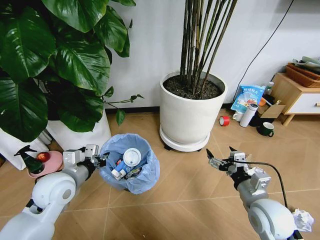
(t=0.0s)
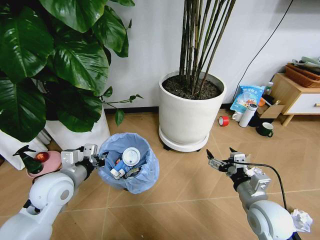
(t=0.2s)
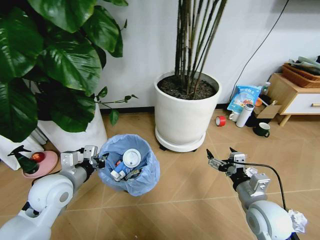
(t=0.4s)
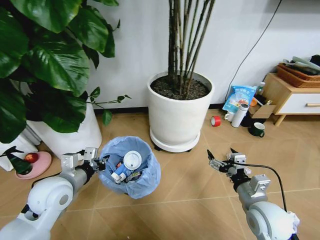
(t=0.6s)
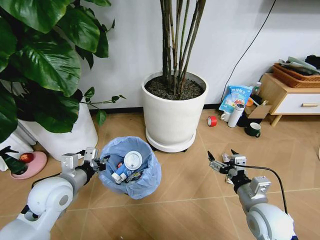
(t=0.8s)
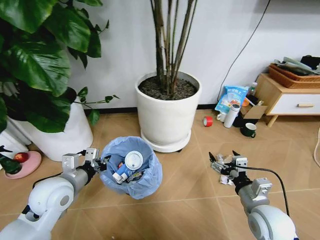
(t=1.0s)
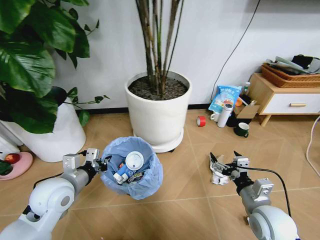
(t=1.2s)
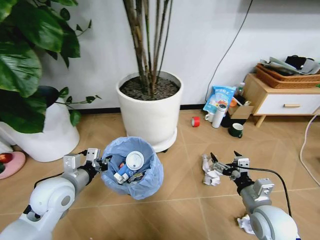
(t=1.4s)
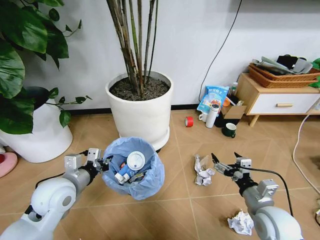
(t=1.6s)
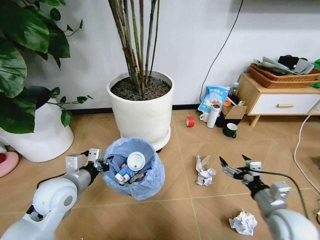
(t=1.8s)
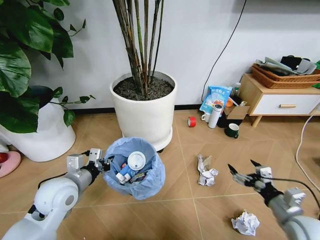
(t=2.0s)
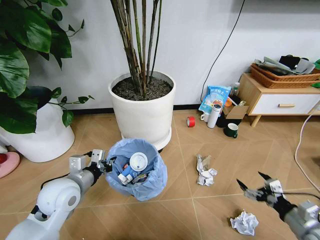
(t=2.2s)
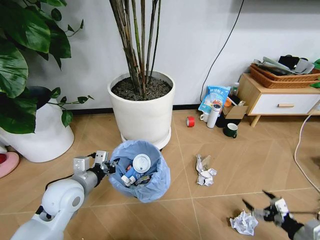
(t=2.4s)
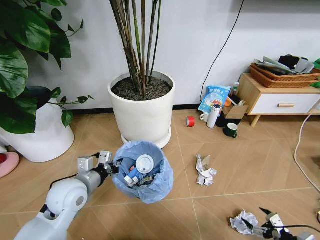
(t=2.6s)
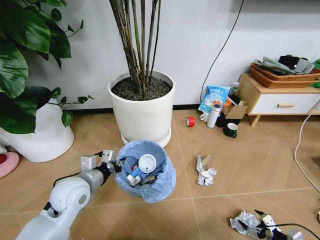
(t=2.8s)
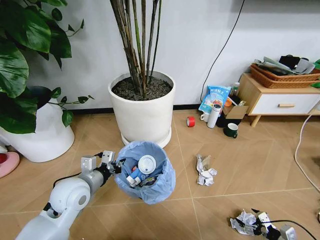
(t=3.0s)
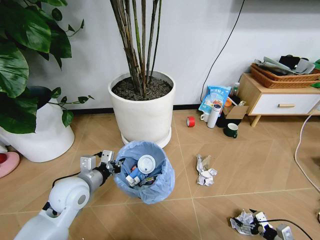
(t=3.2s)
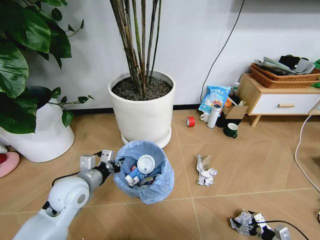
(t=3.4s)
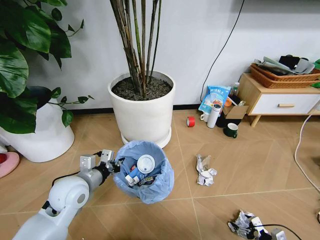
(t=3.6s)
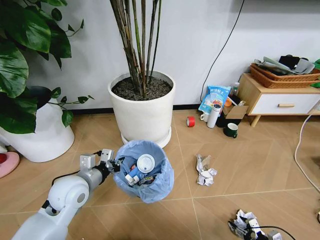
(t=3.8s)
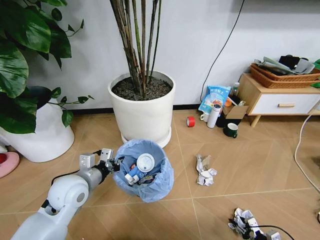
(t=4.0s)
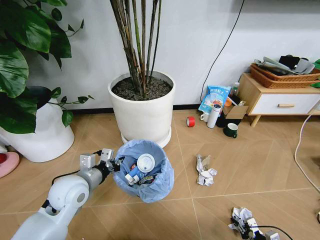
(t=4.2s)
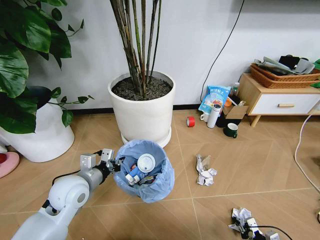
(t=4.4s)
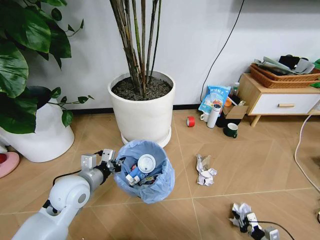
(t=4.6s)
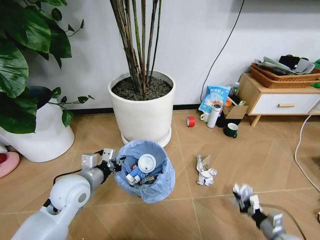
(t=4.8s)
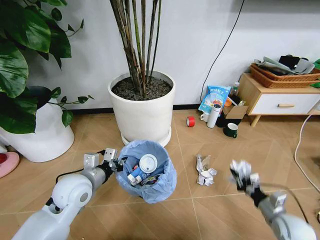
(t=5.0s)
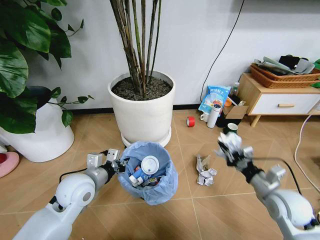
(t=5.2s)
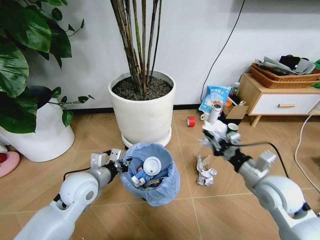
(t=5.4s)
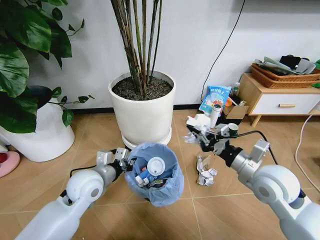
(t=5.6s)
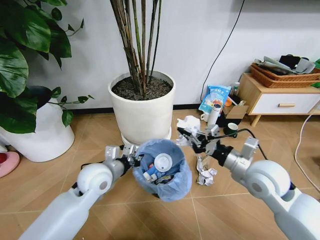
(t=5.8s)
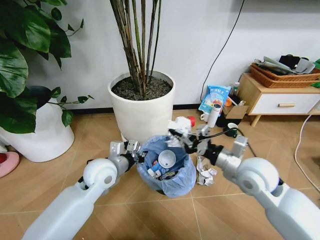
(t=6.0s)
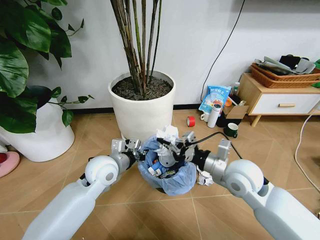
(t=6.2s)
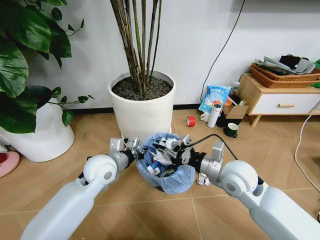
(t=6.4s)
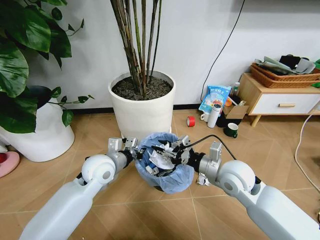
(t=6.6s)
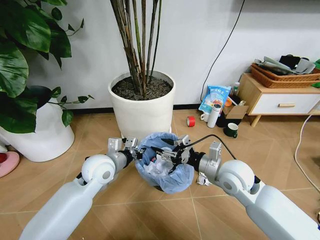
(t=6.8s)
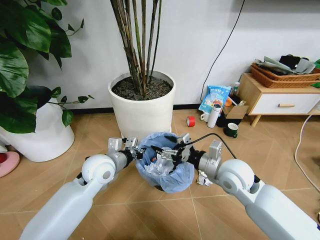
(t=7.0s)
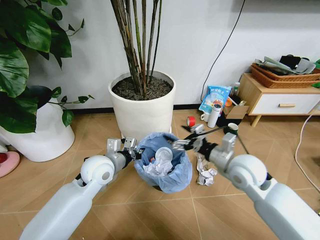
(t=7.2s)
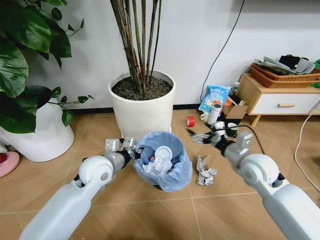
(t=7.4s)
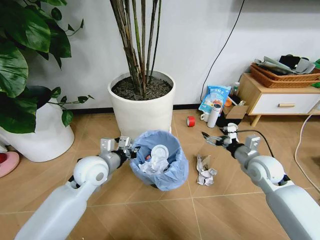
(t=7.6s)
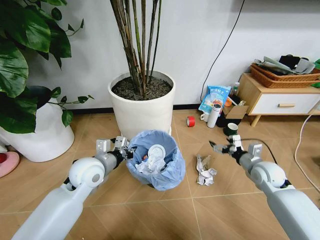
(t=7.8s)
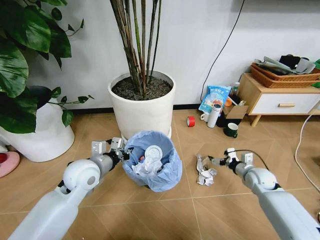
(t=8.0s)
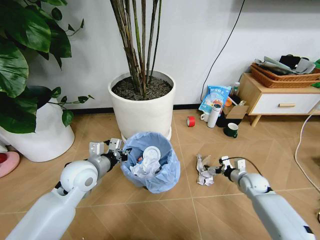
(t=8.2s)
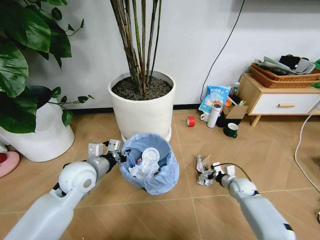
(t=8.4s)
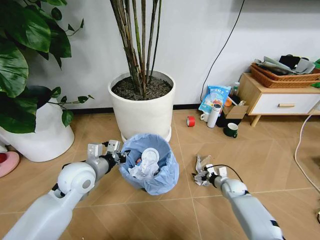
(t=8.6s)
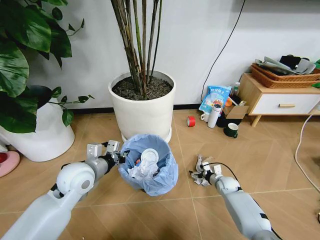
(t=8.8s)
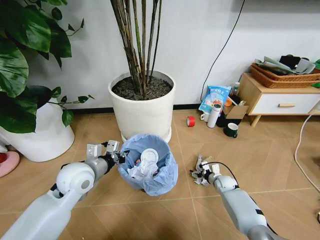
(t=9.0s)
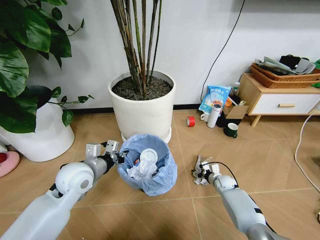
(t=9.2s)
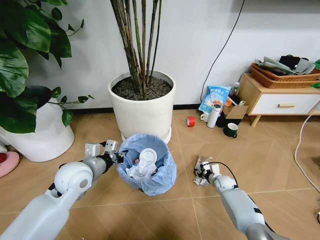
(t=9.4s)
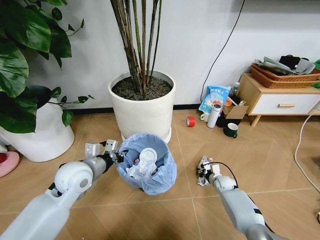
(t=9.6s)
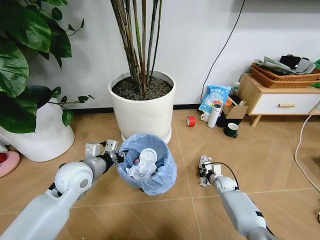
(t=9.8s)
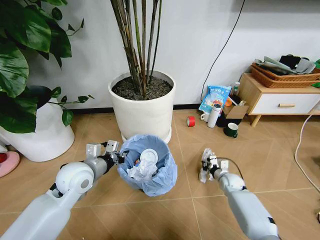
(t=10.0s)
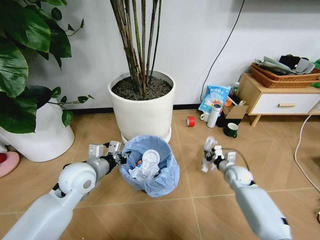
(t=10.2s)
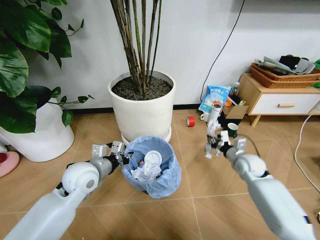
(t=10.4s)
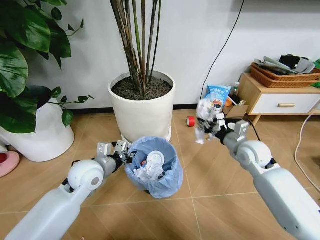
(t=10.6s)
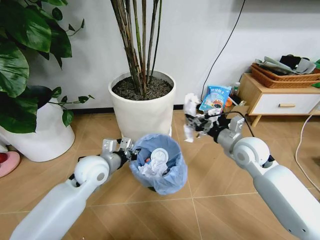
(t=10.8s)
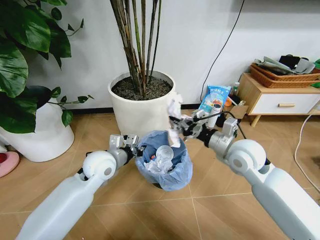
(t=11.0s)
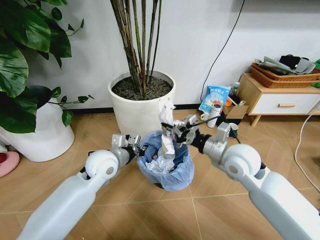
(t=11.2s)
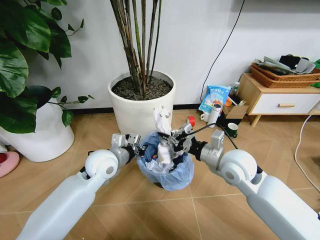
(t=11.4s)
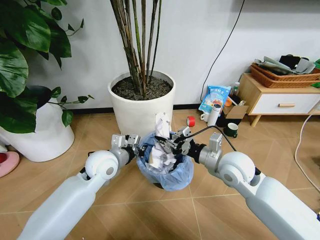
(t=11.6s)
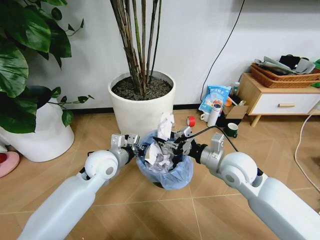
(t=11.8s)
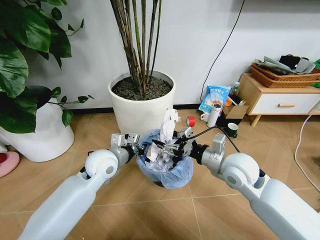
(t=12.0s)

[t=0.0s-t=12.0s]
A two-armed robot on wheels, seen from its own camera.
Task of the whole recording: Pick up the trash bin and place the garbage on the floor into it.
t=1.6s to t=3.0s: The right gripper moves to the right, downward and backward, some 30 cm.
t=3.0s to t=4.4s: The right gripper shifts roughly 5 cm downward, and closes.
t=4.4s to t=6.0s: The left gripper is displaced to the right and forward by about 10 cm. Meanwhile the right gripper travels upward, to the left and forward by some 40 cm.
t=6.0s to t=7.6s: The right gripper shifts some 15 cm to the right, downward and forward, and opens.
t=7.6s to t=9.0s: The right gripper heads downward, covering about 25 cm.
t=9.0s to t=10.4s: The right gripper shifts about 20 cm upward, and closes.
t=10.4s to t=12.0s: The right gripper goes some 20 cm to the left, upward and backward, and opens. The left gripper moves to the right, some 5 cm.

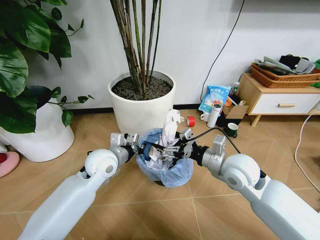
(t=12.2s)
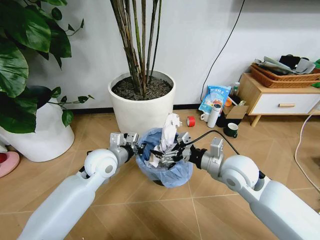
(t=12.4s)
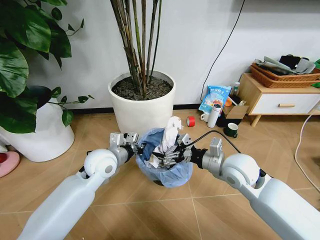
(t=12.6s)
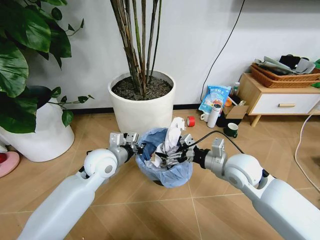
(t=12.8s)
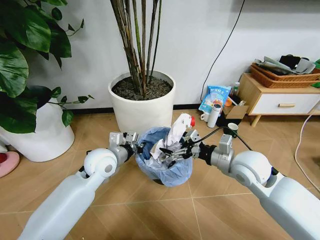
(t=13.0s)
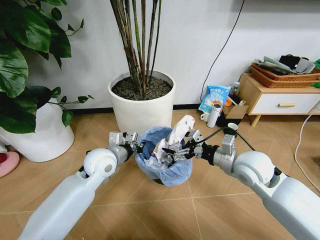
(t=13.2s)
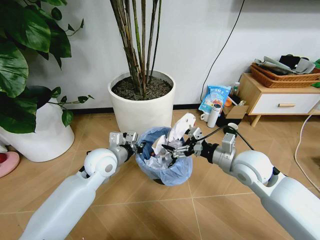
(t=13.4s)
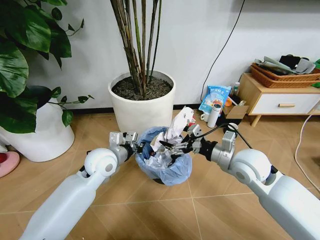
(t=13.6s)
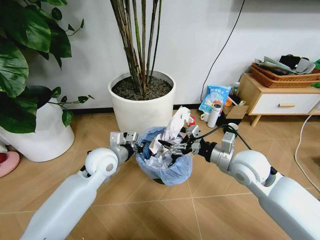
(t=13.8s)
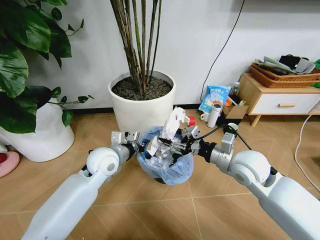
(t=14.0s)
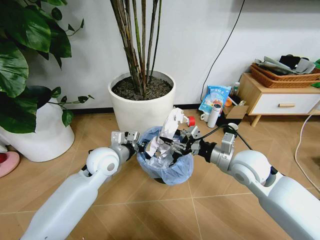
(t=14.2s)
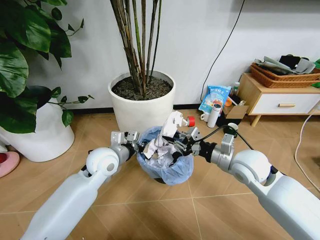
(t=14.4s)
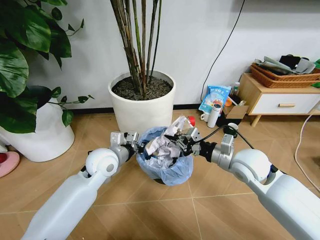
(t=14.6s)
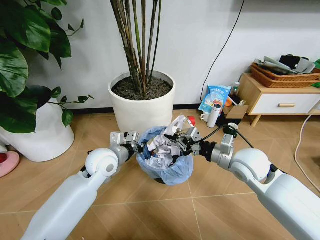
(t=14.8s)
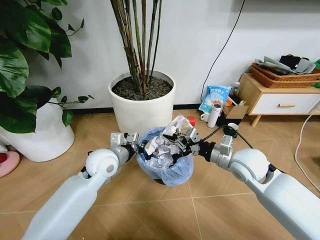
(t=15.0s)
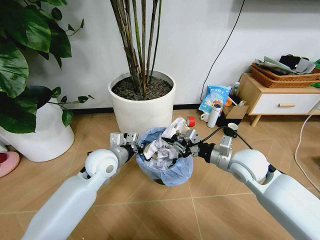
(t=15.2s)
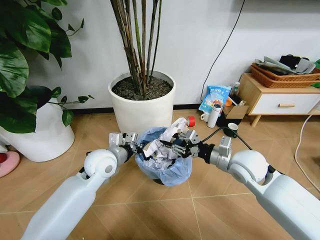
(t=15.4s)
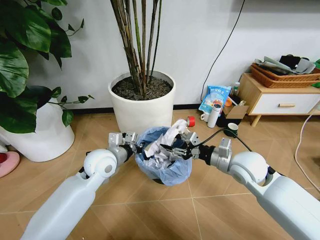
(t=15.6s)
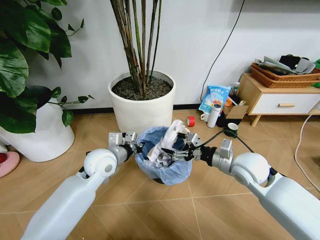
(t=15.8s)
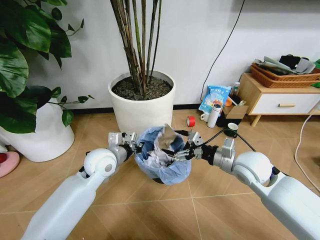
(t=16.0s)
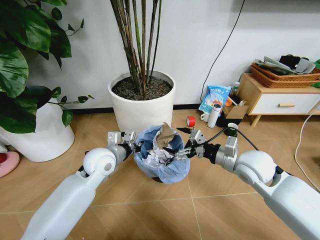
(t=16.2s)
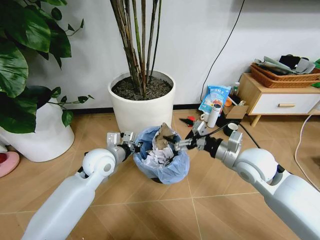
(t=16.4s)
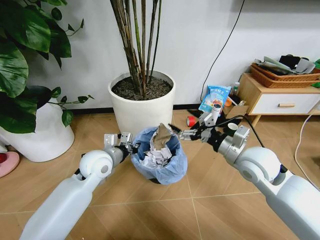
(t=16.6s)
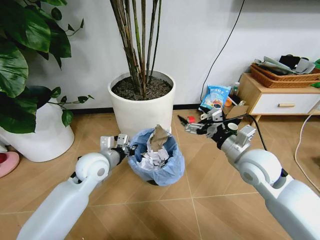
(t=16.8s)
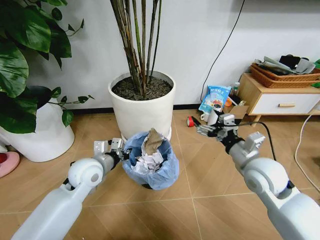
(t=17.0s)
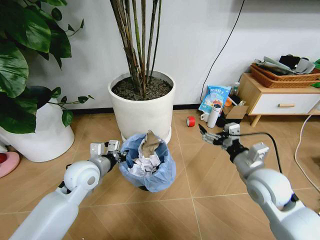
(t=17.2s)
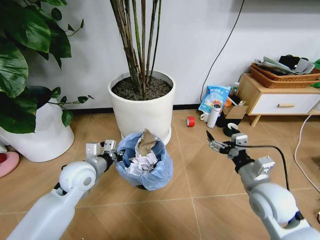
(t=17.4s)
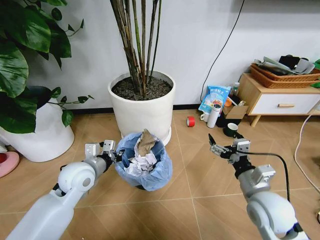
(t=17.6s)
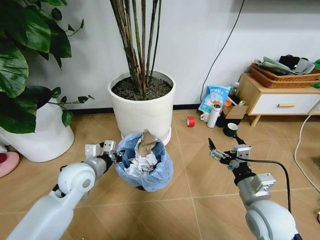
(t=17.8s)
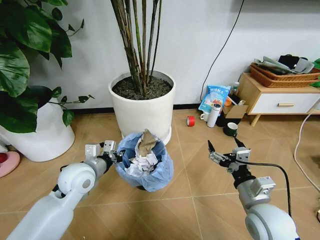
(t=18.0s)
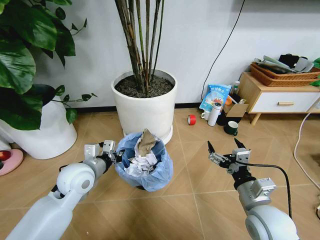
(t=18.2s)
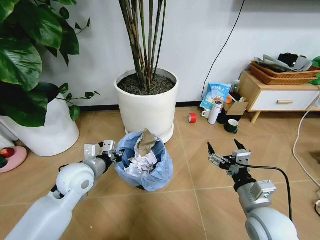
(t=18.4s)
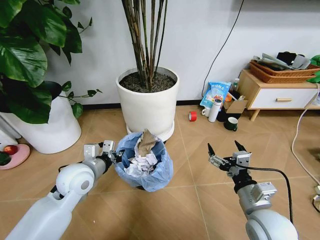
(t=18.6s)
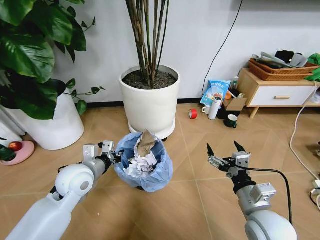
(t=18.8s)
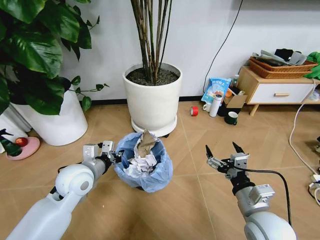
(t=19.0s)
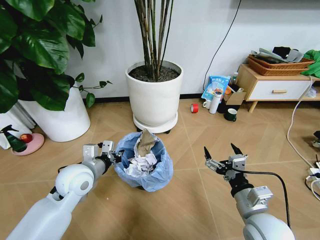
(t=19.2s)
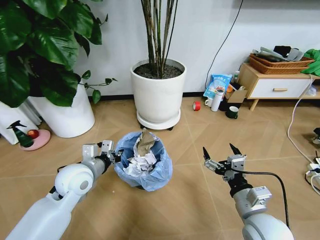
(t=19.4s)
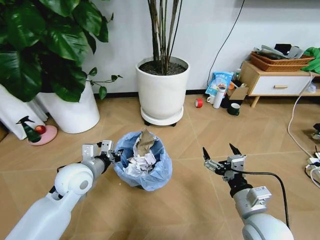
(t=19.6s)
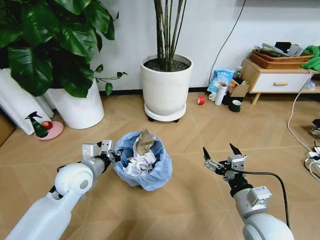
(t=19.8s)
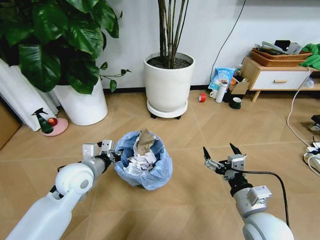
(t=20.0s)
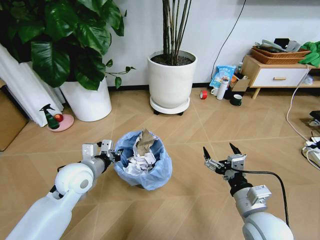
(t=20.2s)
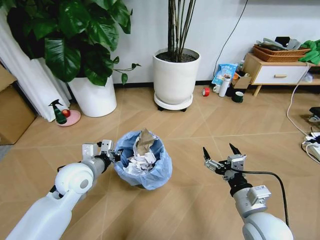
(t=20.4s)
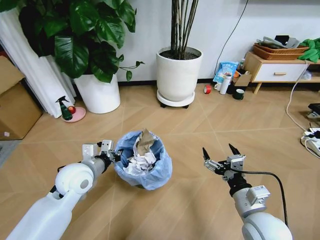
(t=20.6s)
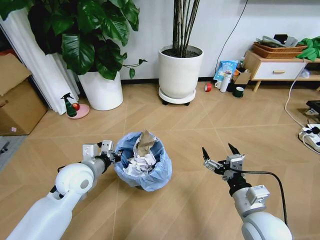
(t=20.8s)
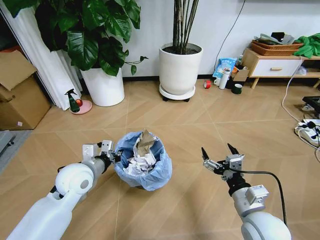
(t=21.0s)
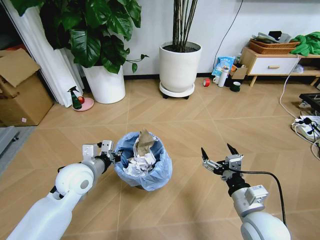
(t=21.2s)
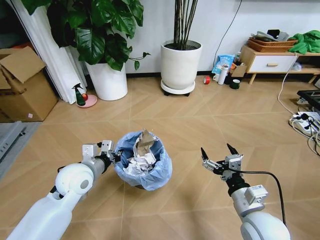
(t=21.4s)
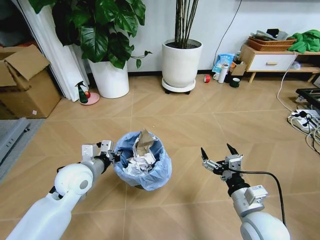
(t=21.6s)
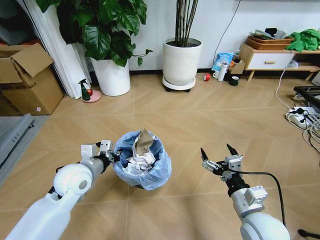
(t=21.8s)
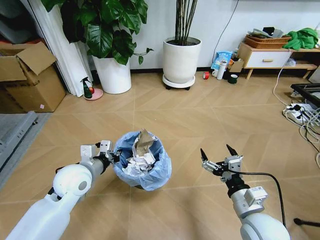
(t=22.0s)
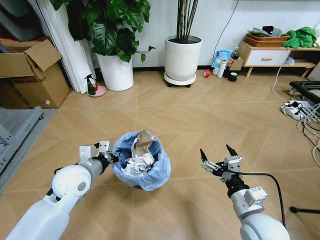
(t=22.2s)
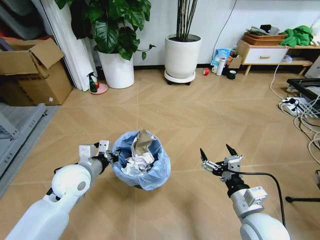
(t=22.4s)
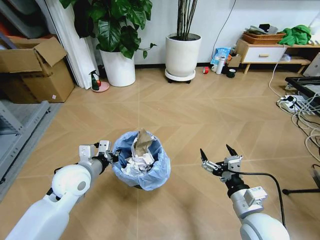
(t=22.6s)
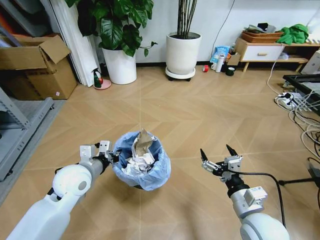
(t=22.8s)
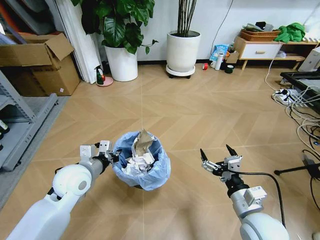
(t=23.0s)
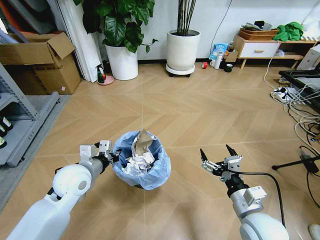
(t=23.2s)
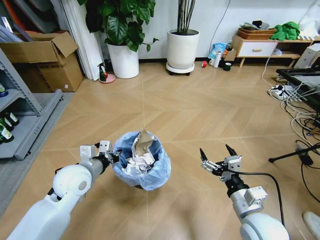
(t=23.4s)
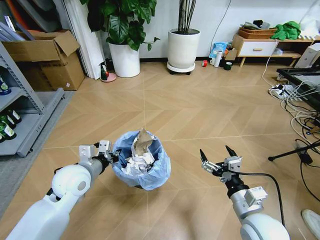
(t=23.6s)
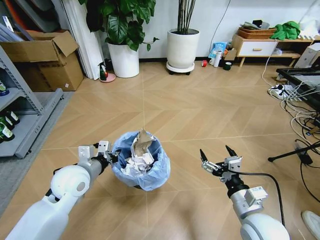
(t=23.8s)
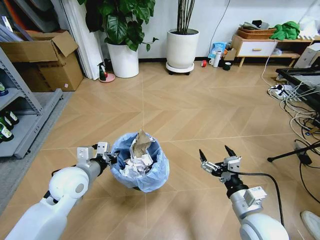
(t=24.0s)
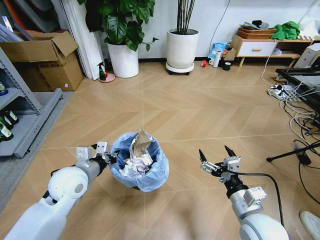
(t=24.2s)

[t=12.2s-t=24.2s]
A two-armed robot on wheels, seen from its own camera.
Task of the whole recording: Pick up the trash bin and place the garbage on the floor into it.
t=12.2s to t=13.8s: The grippers stay close to where they were, moving slightly.
t=13.8s to t=15.2s: The right gripper closes its fingers.
t=15.2s to t=16.6s: The right gripper opens up.
t=16.6s to t=18.2s: The left gripper shifts by approximately 5 cm; the right gripper shifts approximately 15 cm backward and downward.
